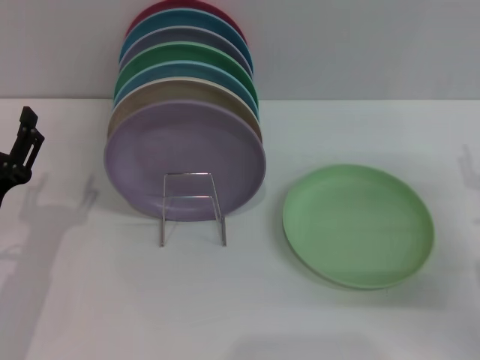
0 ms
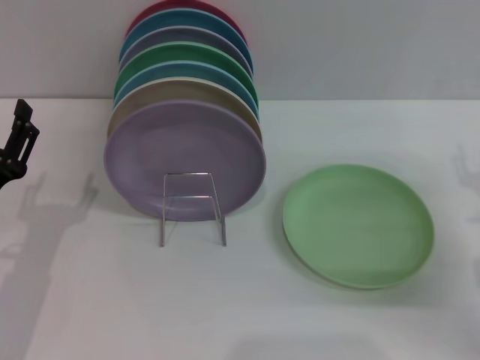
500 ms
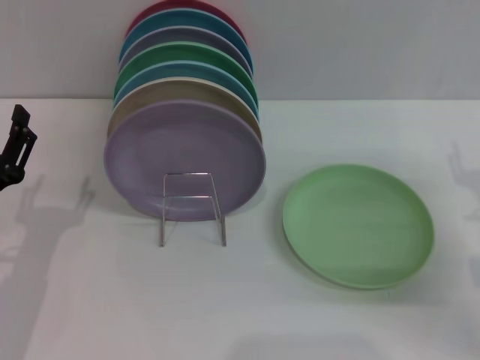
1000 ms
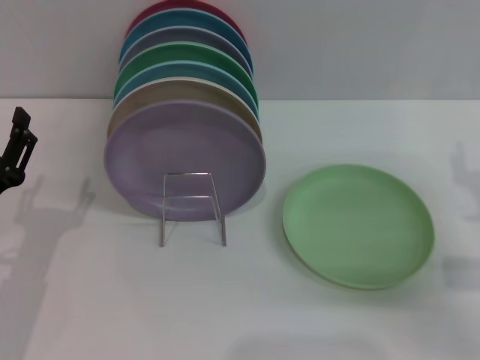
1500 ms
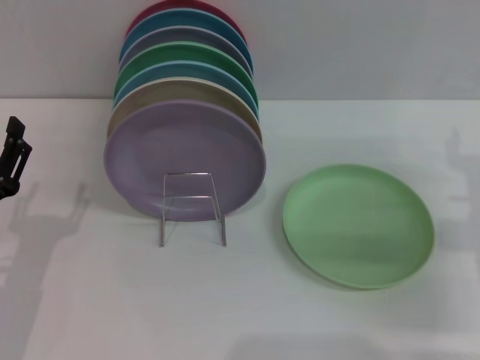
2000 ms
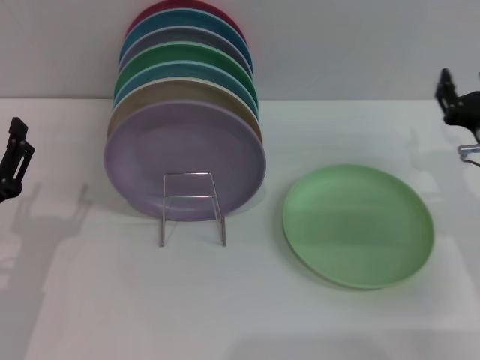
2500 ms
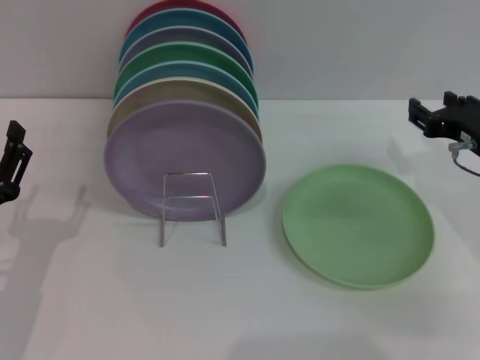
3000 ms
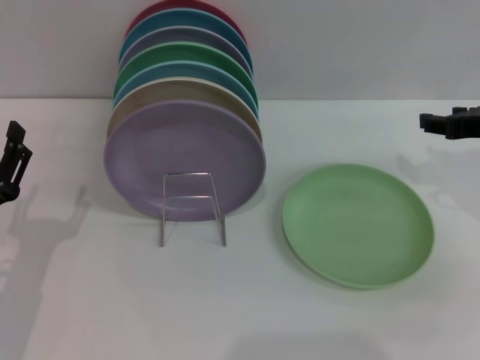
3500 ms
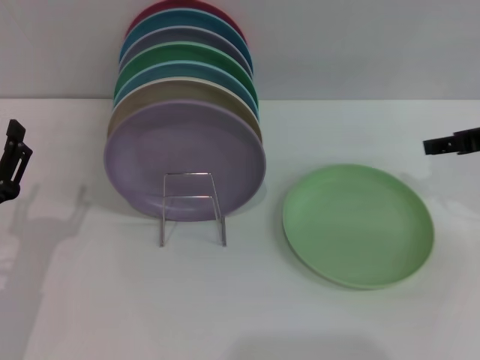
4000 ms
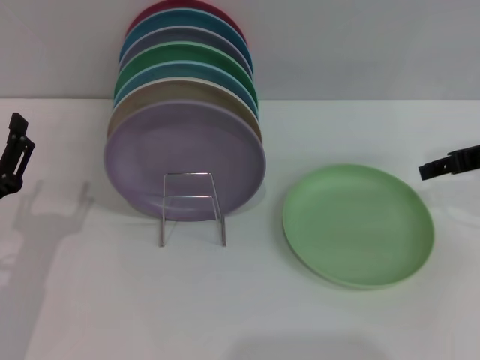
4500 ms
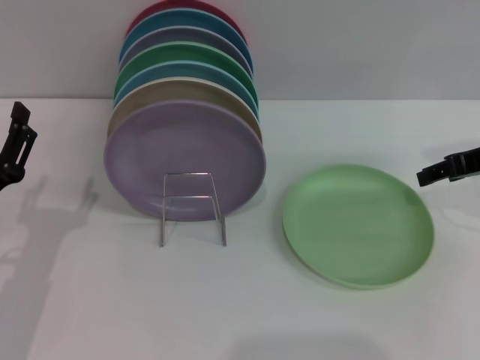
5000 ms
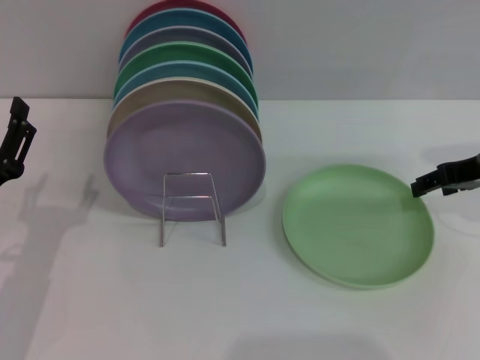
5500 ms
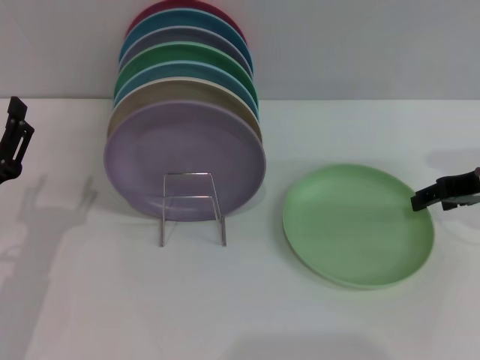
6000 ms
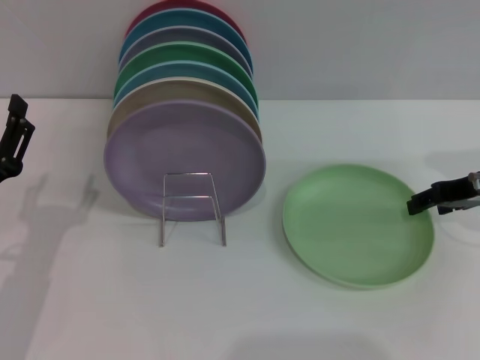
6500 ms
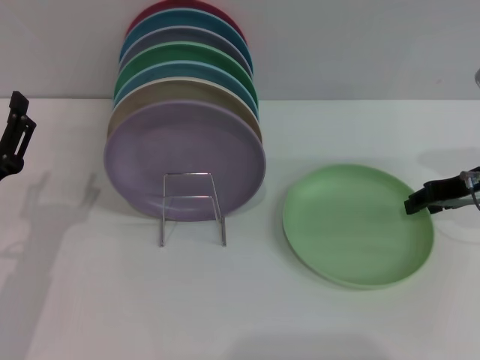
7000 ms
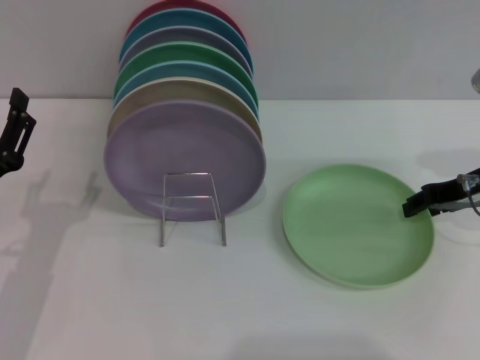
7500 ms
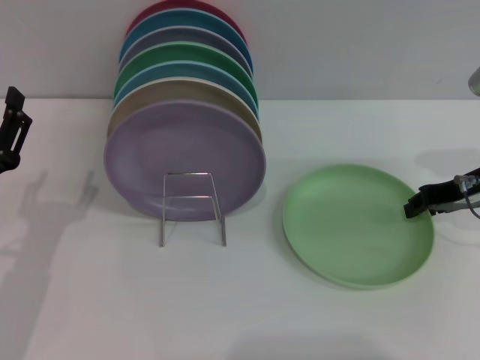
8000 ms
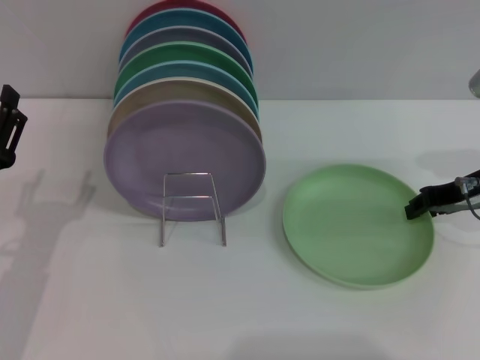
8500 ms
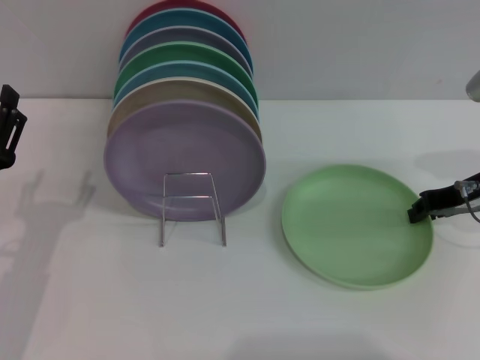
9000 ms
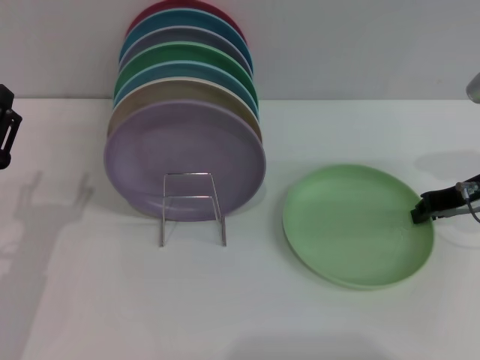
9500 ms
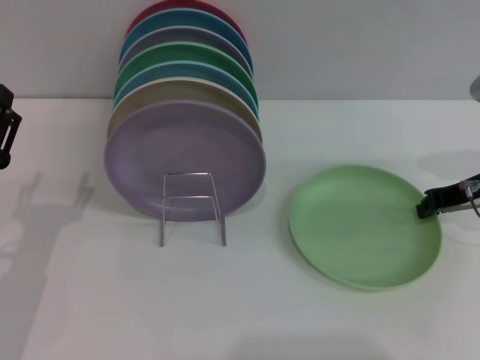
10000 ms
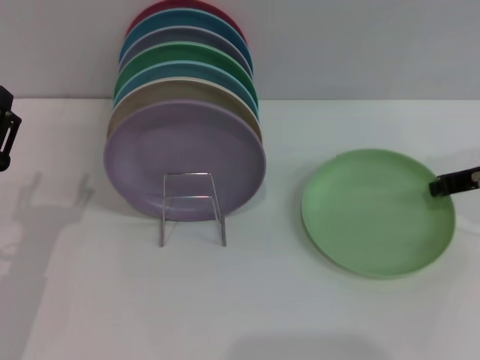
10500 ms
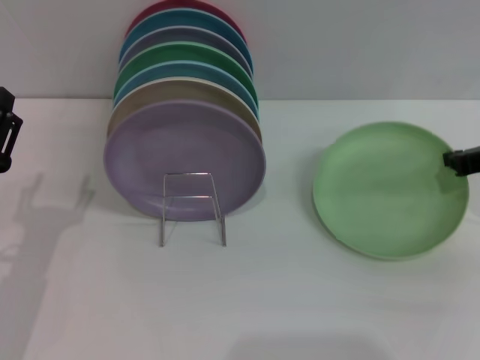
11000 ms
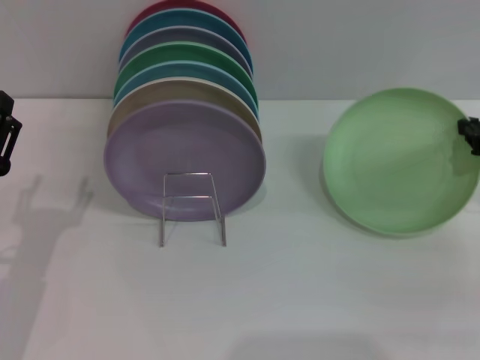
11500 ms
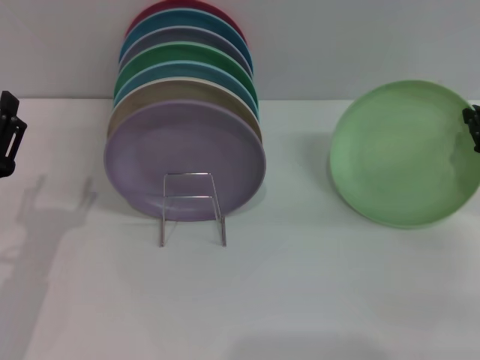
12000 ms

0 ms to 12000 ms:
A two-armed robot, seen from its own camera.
Task of the whole recording: Grip the plate with one hand, pass it to the other, then set it on the shelf.
0 ms to 2000 ms: The right gripper changes place by some 5 cm.
2000 ms to 4000 ms: The right gripper goes some 10 cm upward.
4000 ms to 6000 ms: The grippers make only small movements.
6000 ms to 8000 ms: The right gripper closes up.
8000 ms to 10000 ms: The right gripper closes up.

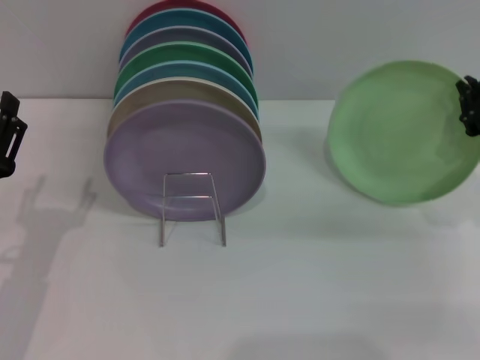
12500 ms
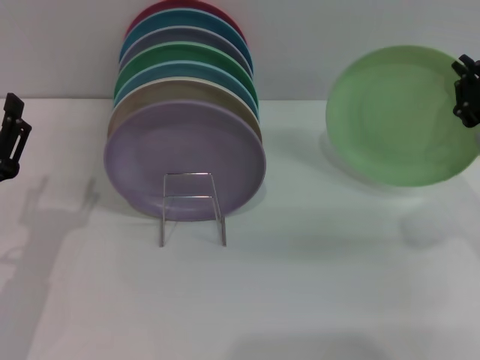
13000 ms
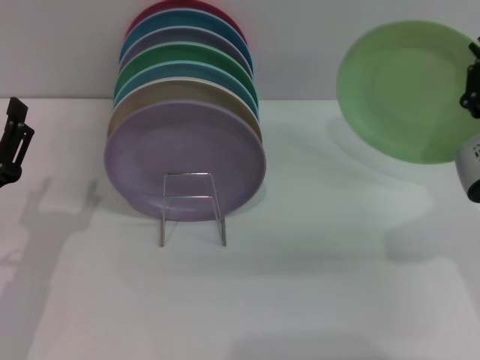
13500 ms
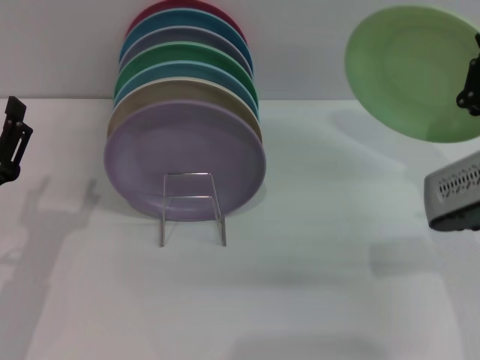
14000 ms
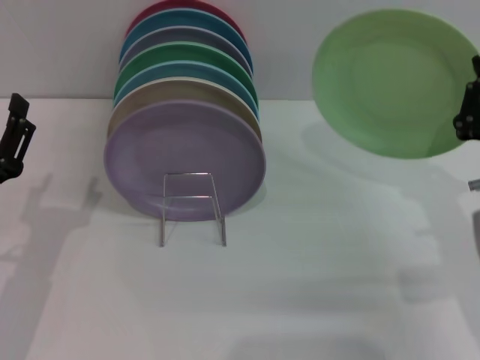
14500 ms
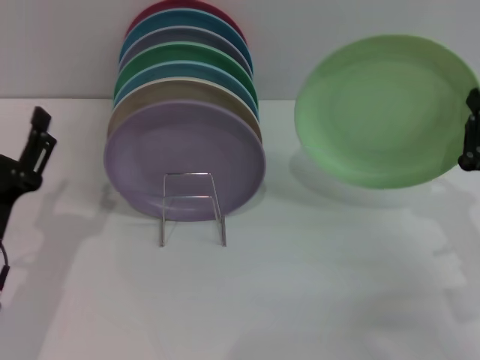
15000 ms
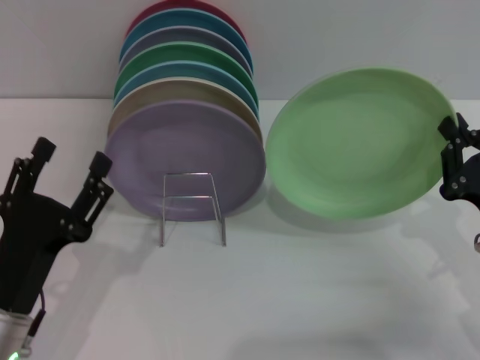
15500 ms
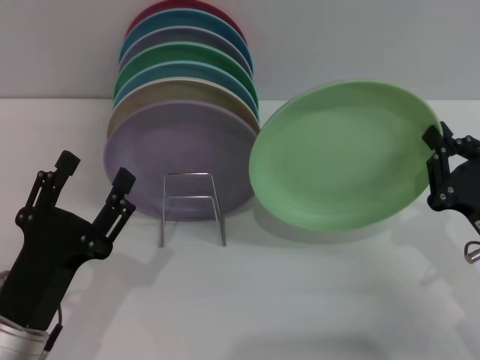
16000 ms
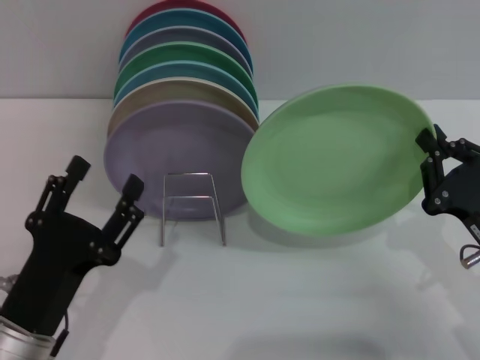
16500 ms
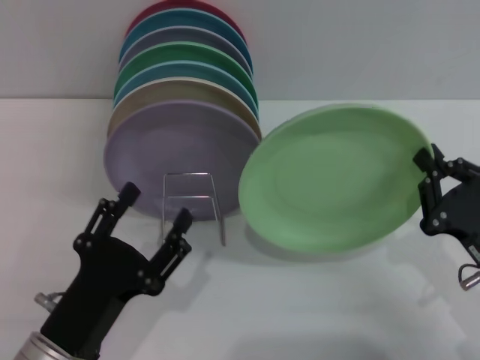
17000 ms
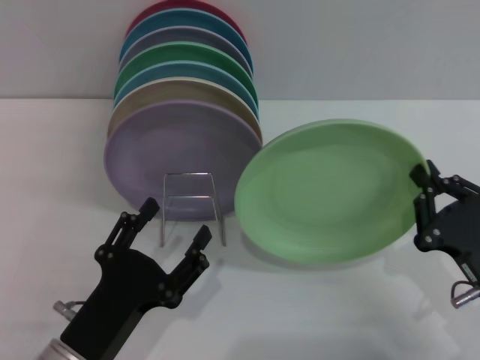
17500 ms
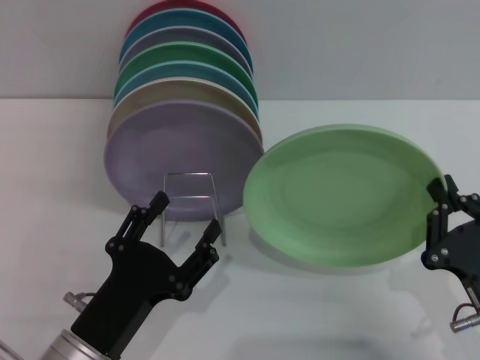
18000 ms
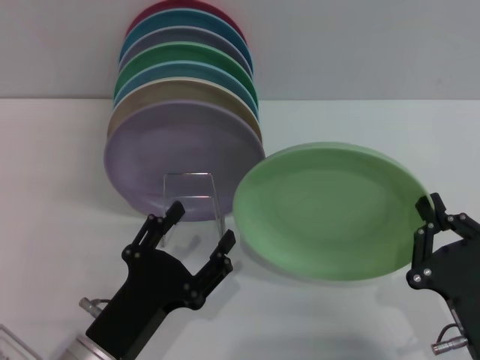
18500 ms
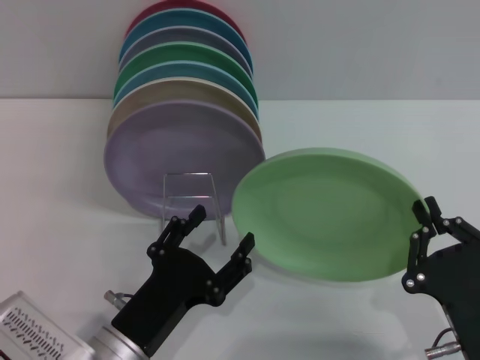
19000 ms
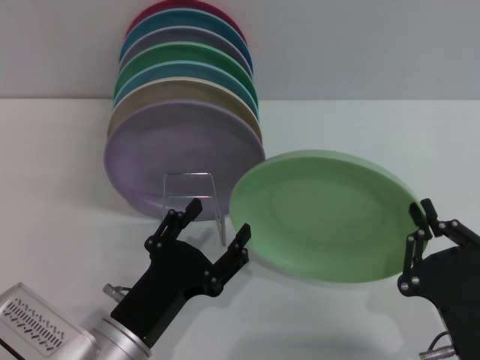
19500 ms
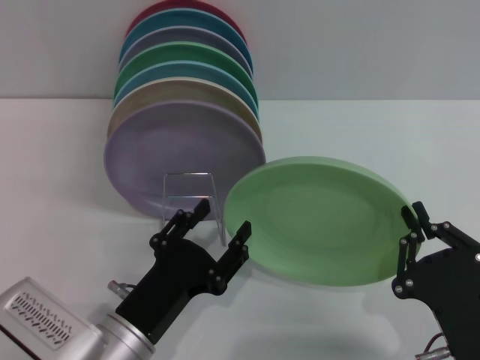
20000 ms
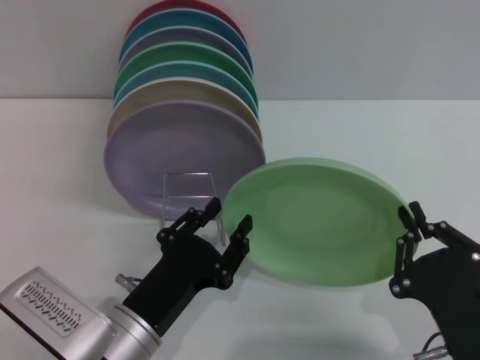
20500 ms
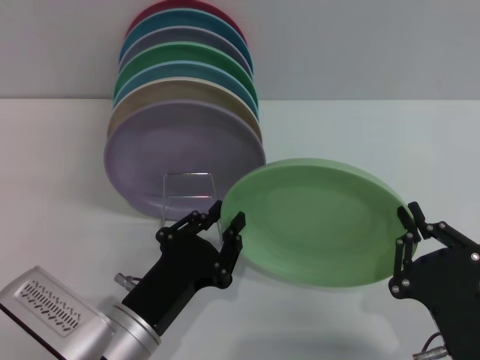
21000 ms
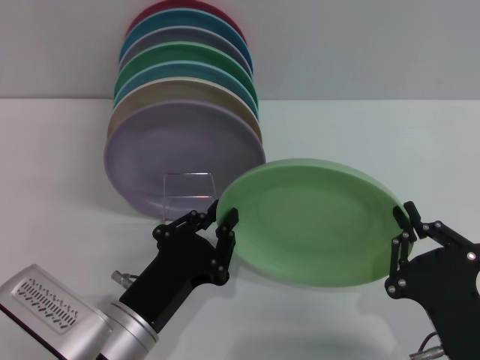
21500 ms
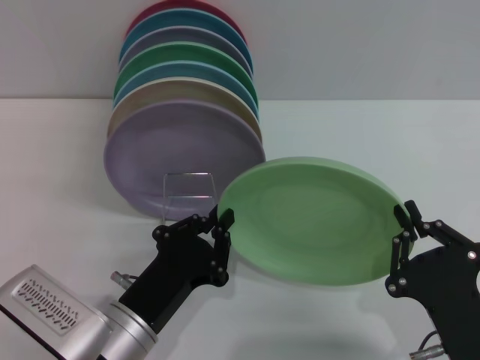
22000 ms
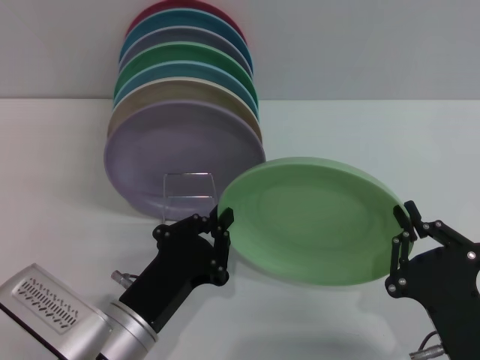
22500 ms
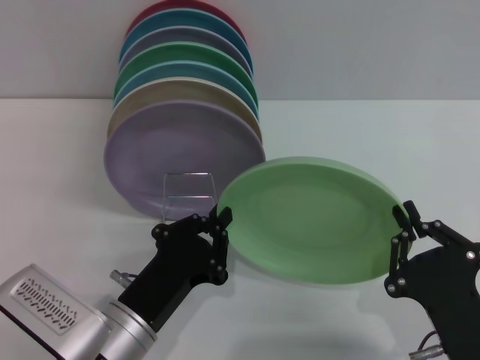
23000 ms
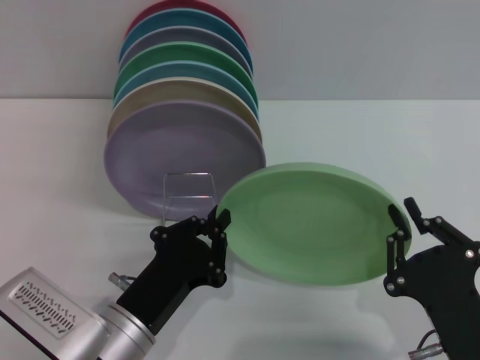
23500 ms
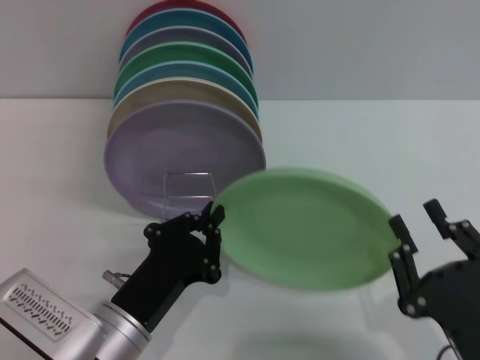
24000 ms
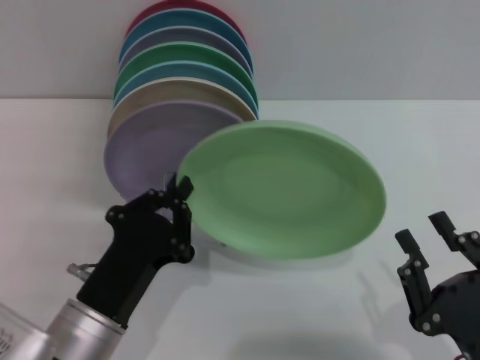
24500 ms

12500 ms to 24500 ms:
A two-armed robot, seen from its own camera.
Task of the whole recording: Grip the plate with one hand, pass it to the other, then set it on the shelf.
Step, 13500 ms to 24000 ms: Pass the plate from the right gripper to the left gripper.
12500 ms to 14500 ms: The right gripper shifts approximately 10 cm backward and to the left.
14500 ms to 16500 ms: The right gripper changes place by about 5 cm. Meanwhile the left gripper shifts about 10 cm backward and to the right.
16500 ms to 18500 ms: The left gripper shifts by some 5 cm. Meanwhile the right gripper shifts about 10 cm backward and to the left.
18500 ms to 20500 ms: The grippers move only a little.
20500 ms to 22500 ms: The left gripper closes its fingers.
22500 ms to 24500 ms: The right gripper opens up.

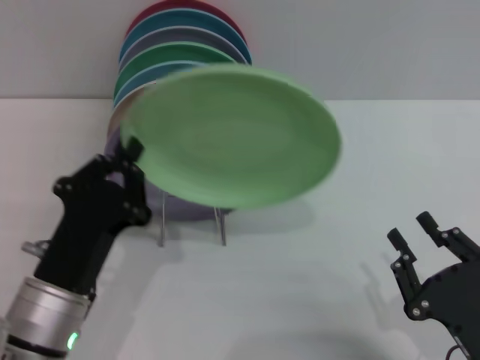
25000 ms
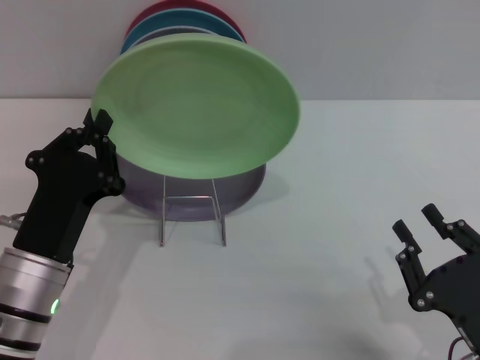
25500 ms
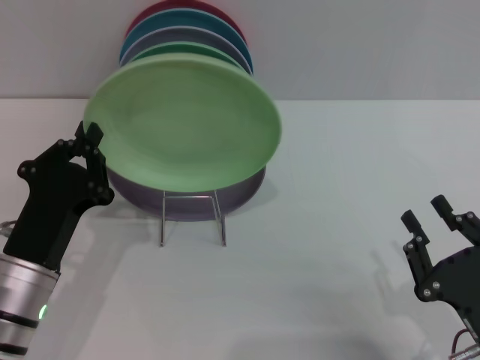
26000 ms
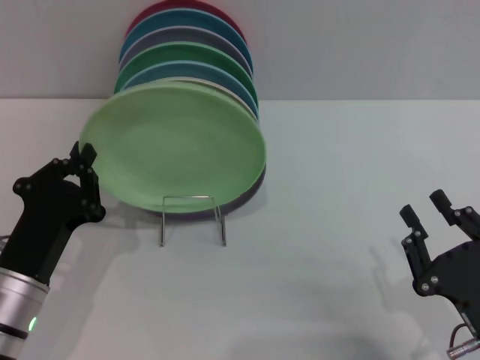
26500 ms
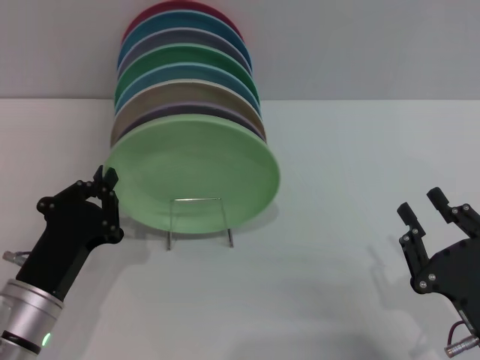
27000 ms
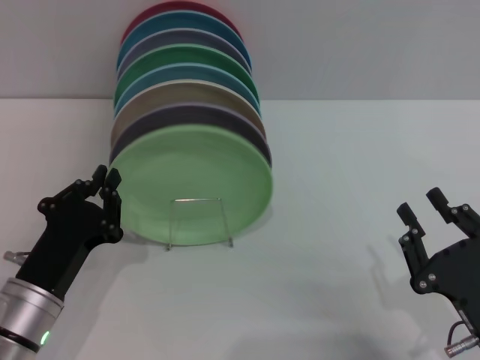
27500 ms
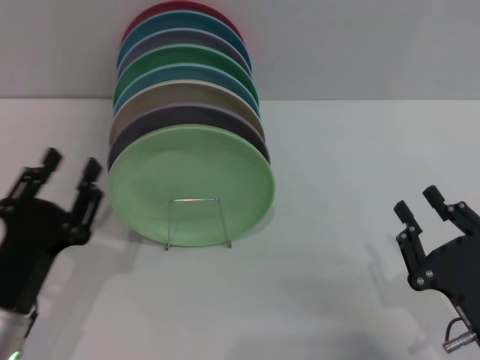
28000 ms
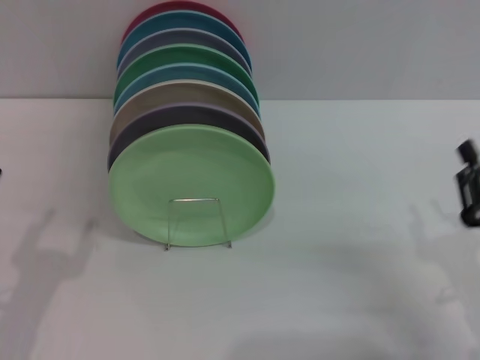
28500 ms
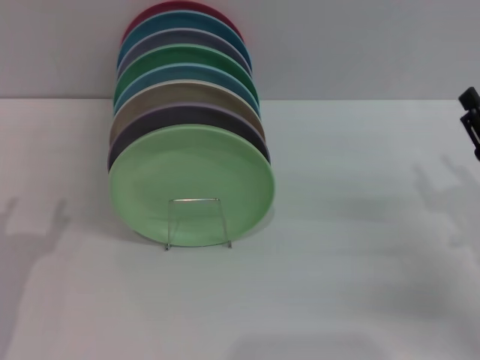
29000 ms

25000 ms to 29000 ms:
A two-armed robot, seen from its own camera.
Task of the whole recording: Grip the plate with one hand, pass it to the other, then set it on the shelf.
Step, 25000 ms to 28000 ms: Place the plate on the shelf with the left gripper.
25000 ms to 27000 ms: The left gripper moves some 5 cm.
27000 ms to 29000 ms: The right gripper heads forward and to the right, covering roughly 15 cm. The left gripper is displaced to the left by about 5 cm, and opens its fingers.
